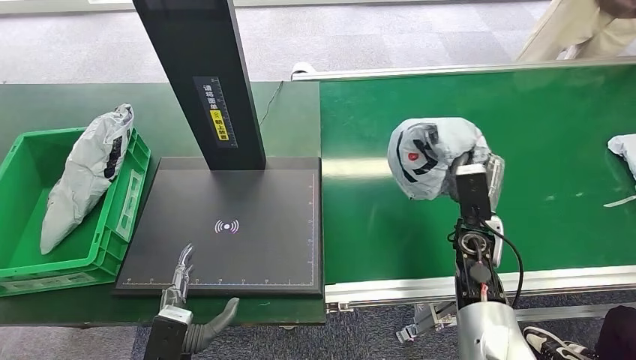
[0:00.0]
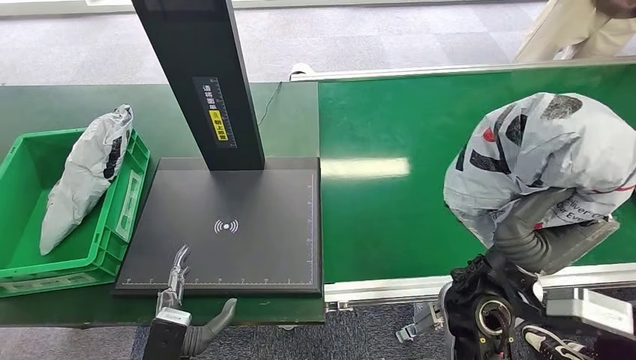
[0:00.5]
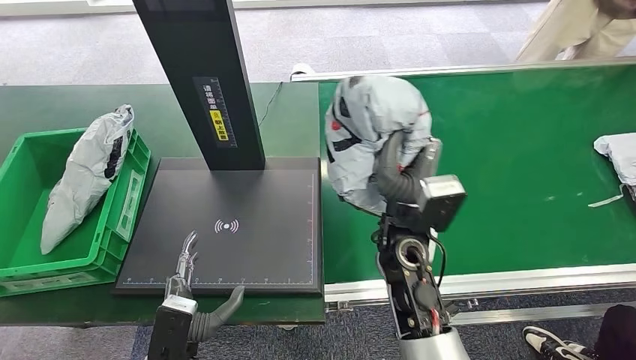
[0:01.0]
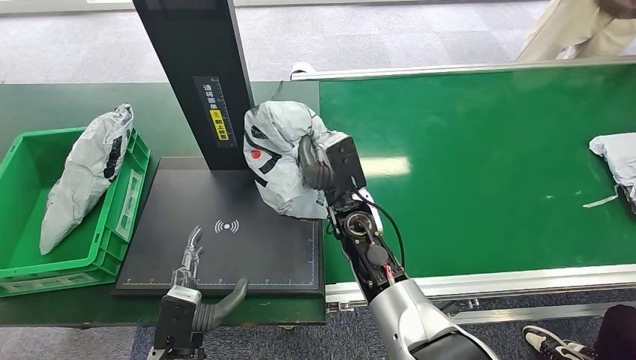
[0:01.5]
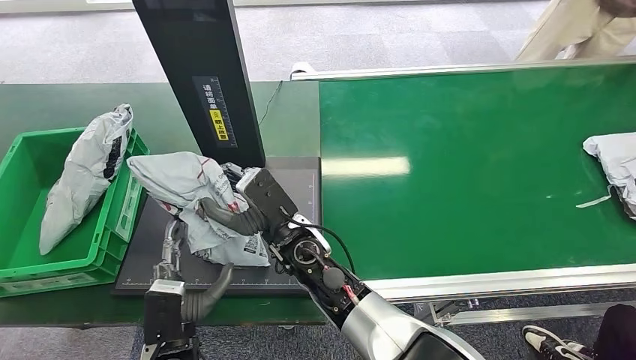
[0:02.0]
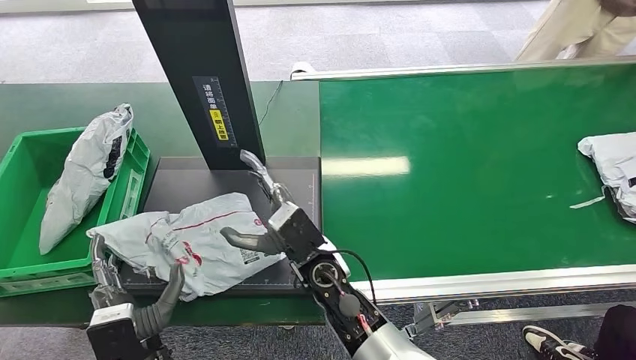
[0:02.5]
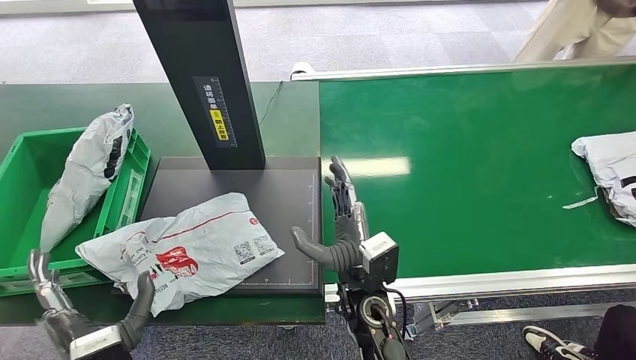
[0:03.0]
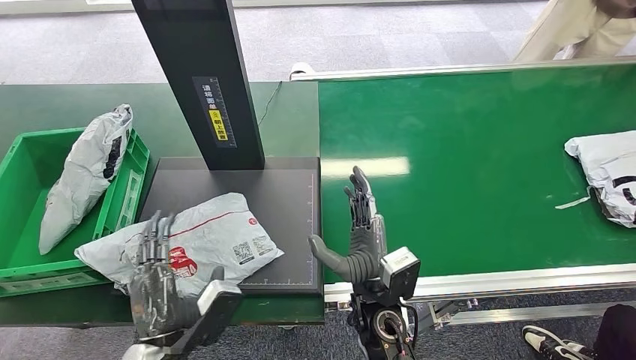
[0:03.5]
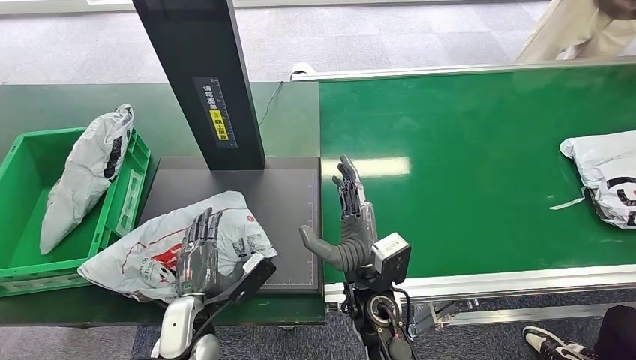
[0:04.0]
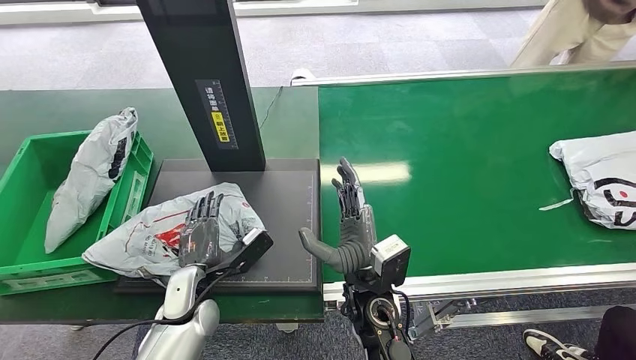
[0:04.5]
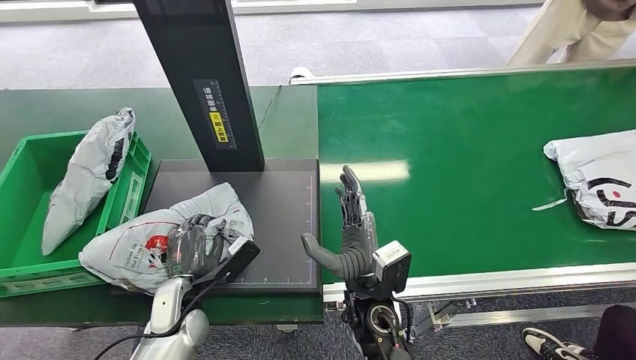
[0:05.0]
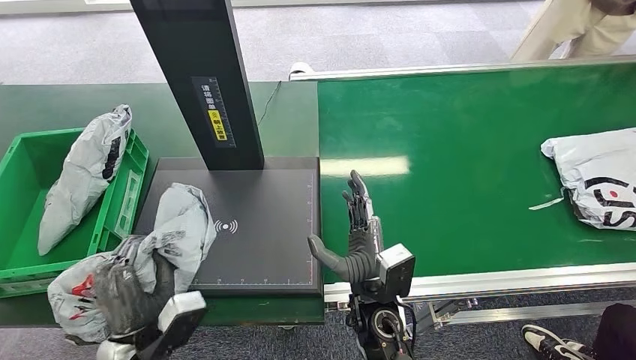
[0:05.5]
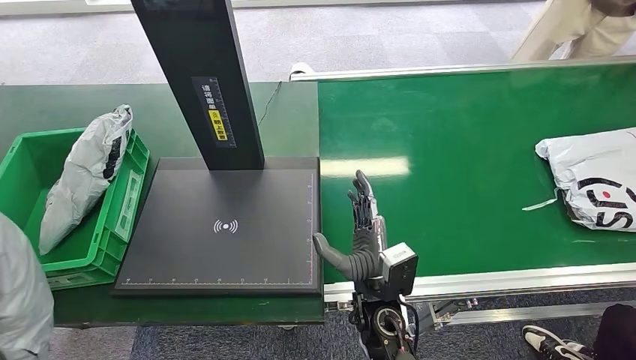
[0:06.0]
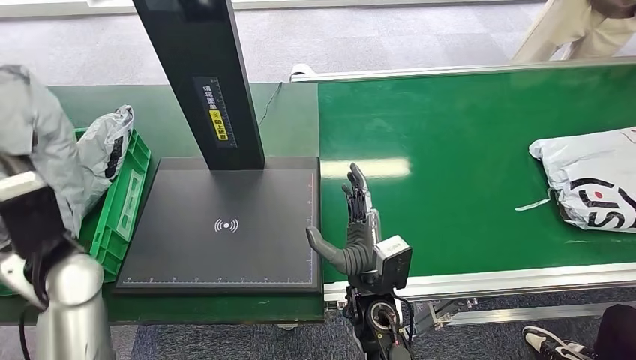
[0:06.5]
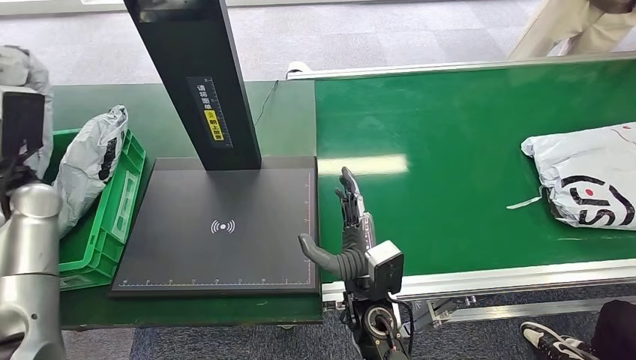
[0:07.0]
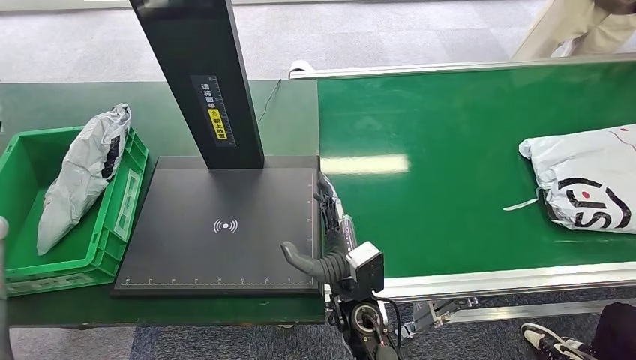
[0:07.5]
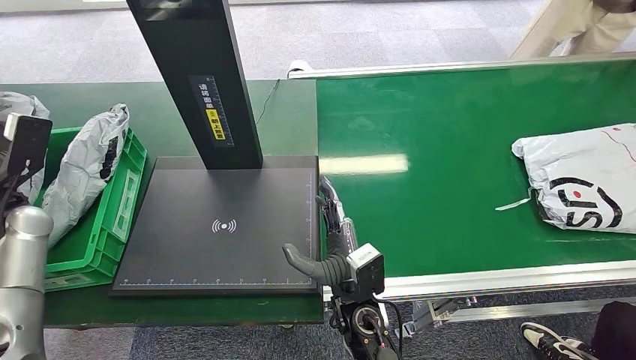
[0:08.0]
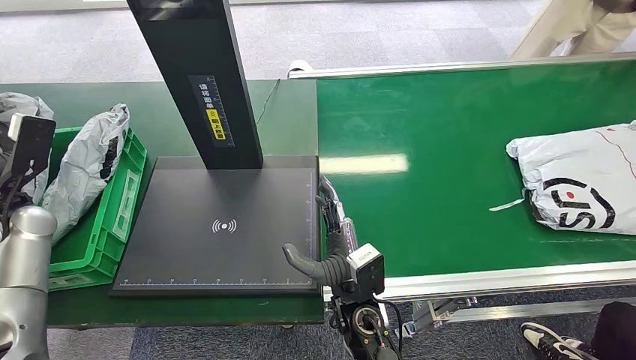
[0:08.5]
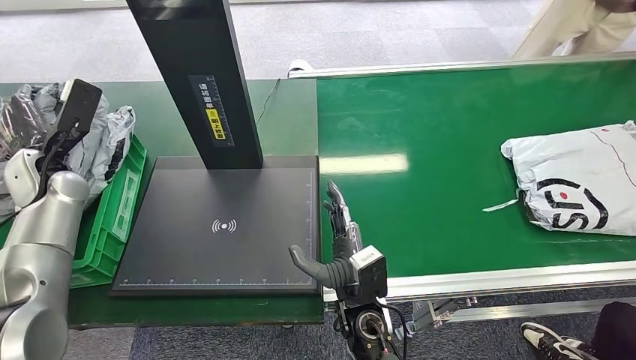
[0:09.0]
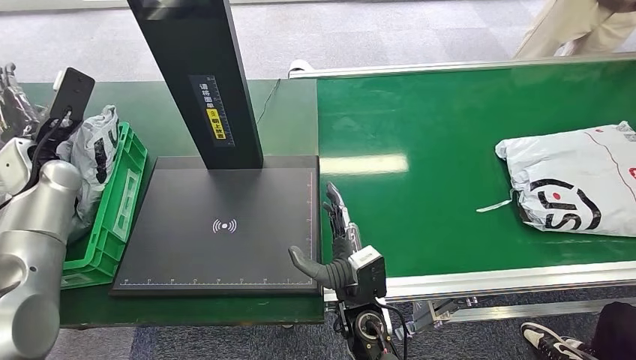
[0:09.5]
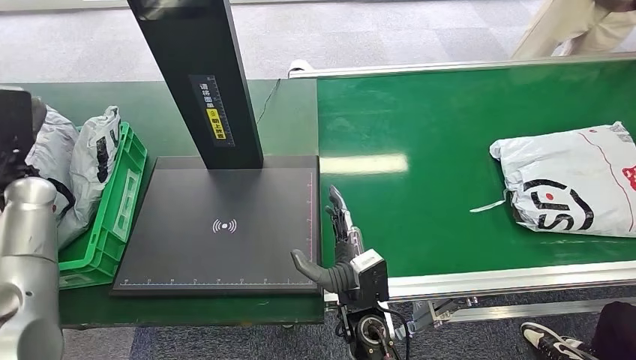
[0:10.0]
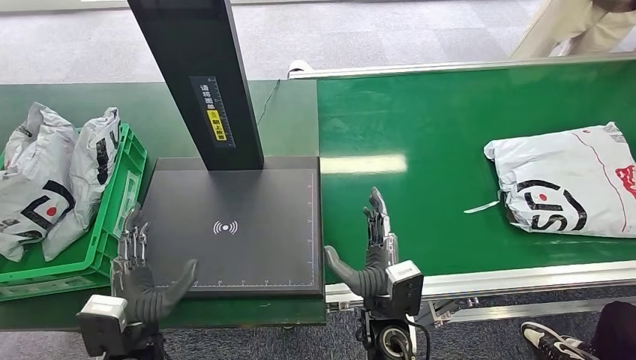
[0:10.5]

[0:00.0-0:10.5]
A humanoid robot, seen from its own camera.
Step, 0:01.0 to 0:03.0: Place the package onto the inbound machine.
Step, 0:03.5 to 0:05.5: Pick up the package from the inbound machine.
Step, 0:06.0 to 0:10.5: Place the package into the parcel locker.
0:02.0 to 0:04.0: The left hand shifts by some 5 cm. The right hand moves backward and to the right, roughly 10 cm.
